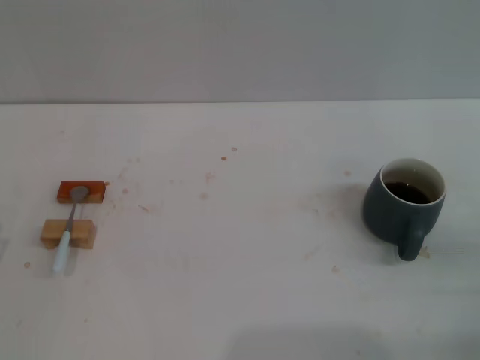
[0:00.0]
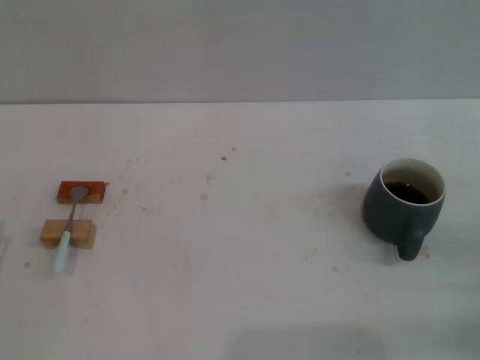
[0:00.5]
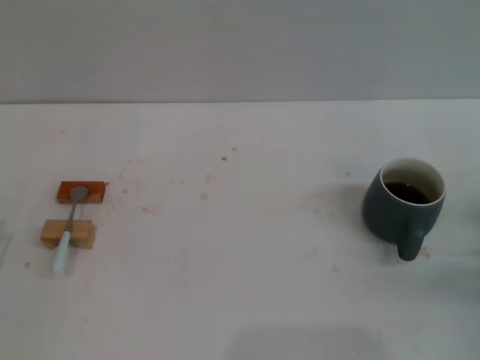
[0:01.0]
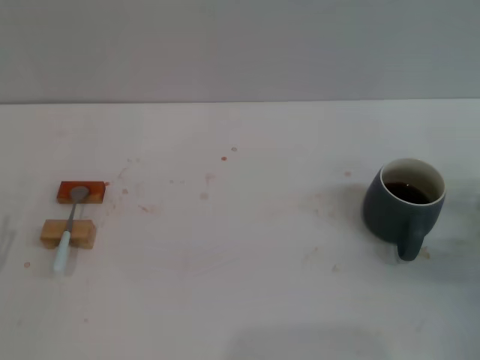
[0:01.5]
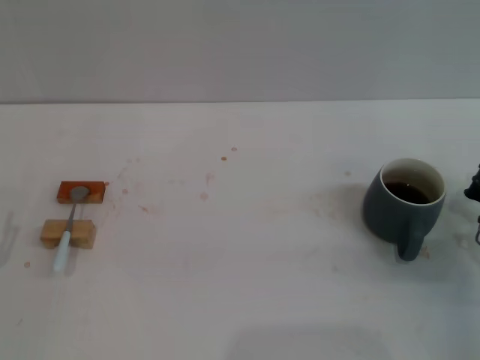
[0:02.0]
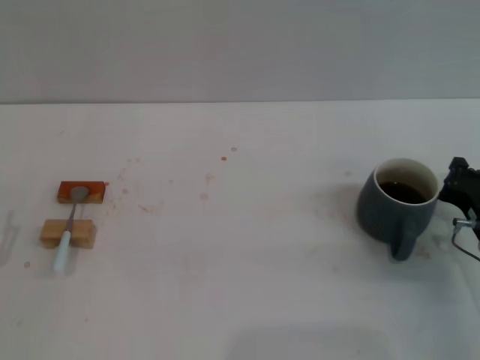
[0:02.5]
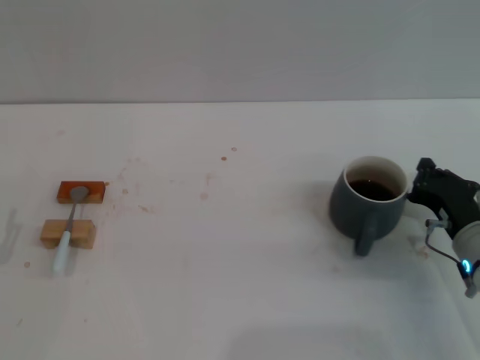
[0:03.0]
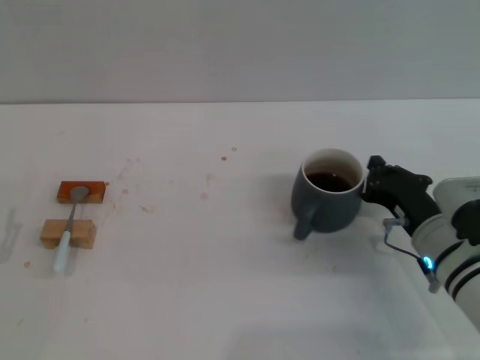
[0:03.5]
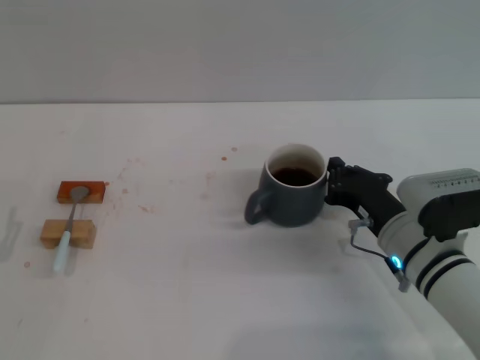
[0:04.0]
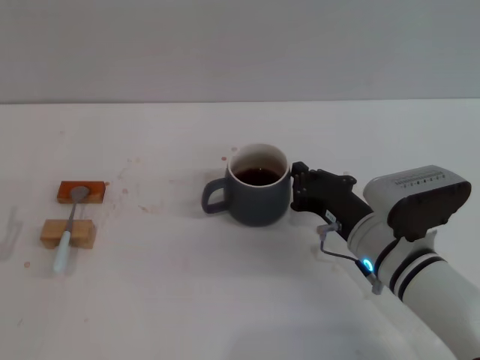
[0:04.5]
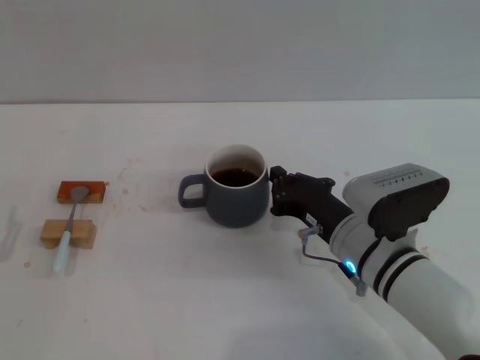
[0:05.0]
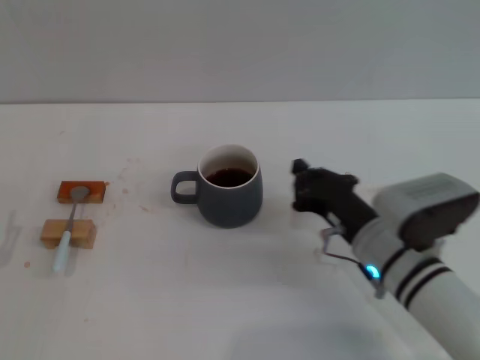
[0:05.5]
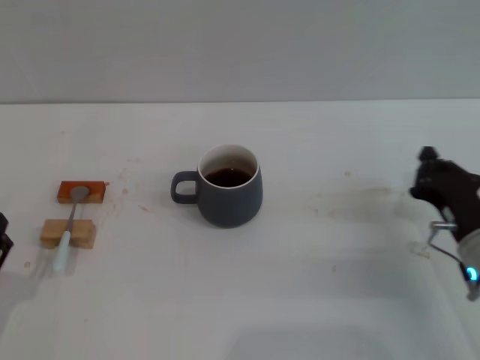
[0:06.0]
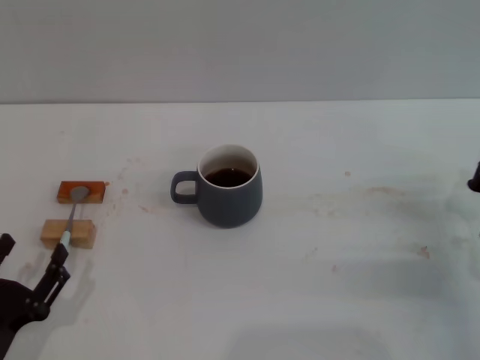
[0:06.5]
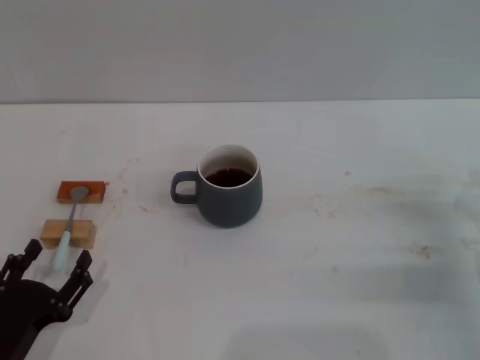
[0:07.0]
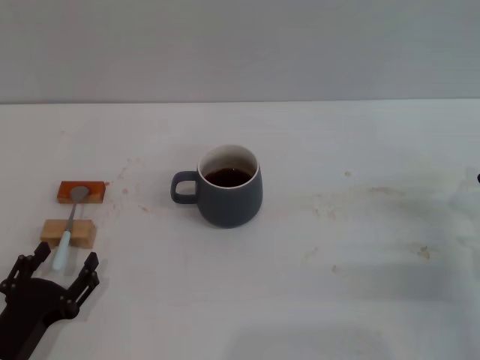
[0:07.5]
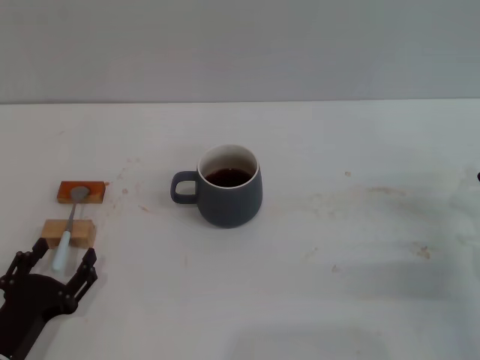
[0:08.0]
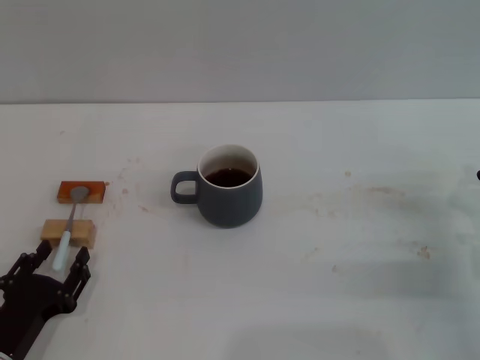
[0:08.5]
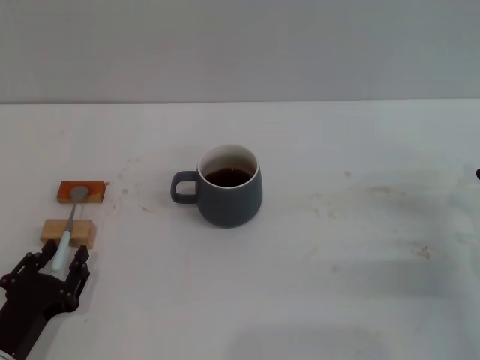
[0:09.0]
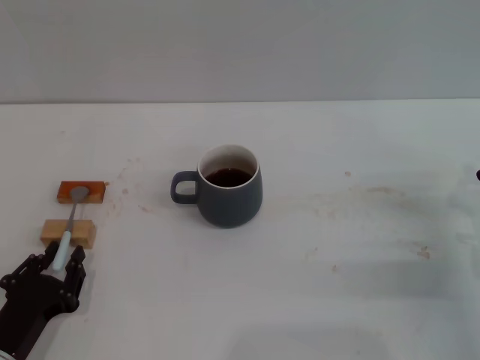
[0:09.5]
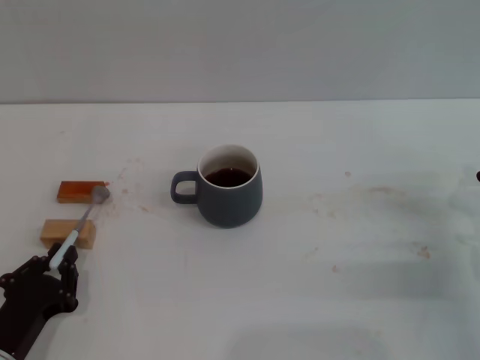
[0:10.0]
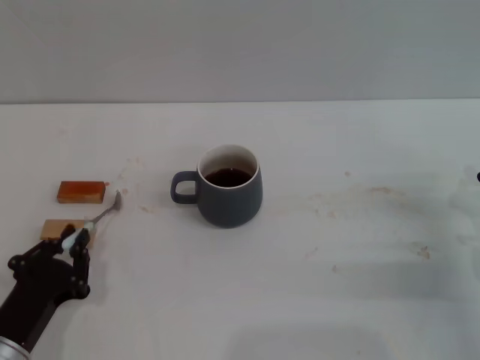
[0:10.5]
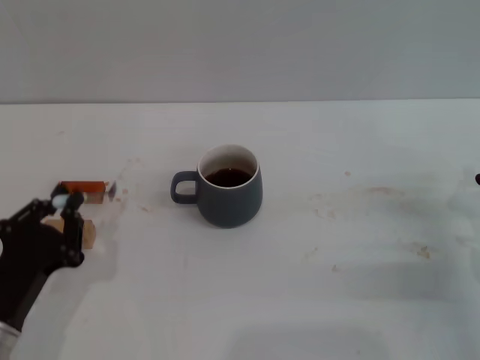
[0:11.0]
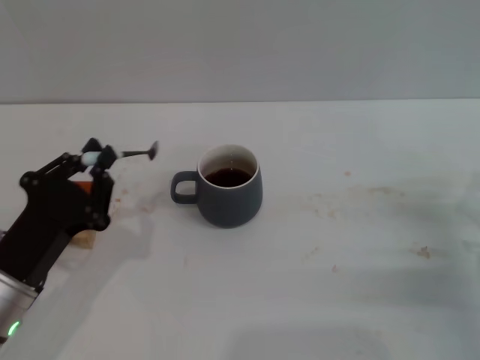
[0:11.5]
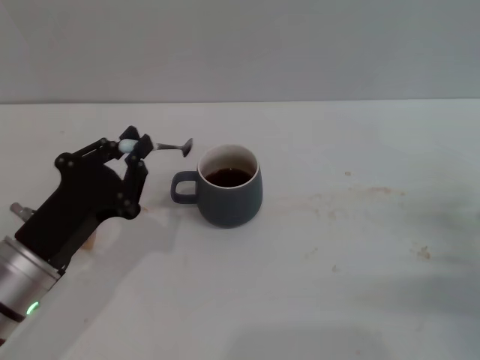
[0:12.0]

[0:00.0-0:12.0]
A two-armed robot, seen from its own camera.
Task of the whole recording: Move the grey cup to the center, lift the blue spoon, stir it three times in the cup, and put the spoon into the cup.
Step, 0:00.0 to 0:05.0: Move the cup with coffee to the center of view with the right gripper.
Step, 0:06.0 to 0:11.0: Pick up the spoon with the left gripper.
0:00.0 to 0:02.0: The right gripper travels forward by roughly 10 cm.
0:02.0 to 0:04.0: The right gripper goes approximately 10 cm to the left.
0:04.0 to 0:06.0: The left gripper moves some 5 cm. Meanwhile the right gripper is displaced to the right by some 5 cm.
0:06.0 to 0:08.0: The grippers move only a little.
0:08.0 to 0:10.0: The left gripper closes up.
0:10.0 to 0:12.0: The left gripper heads upward and forward, covering approximately 10 cm.

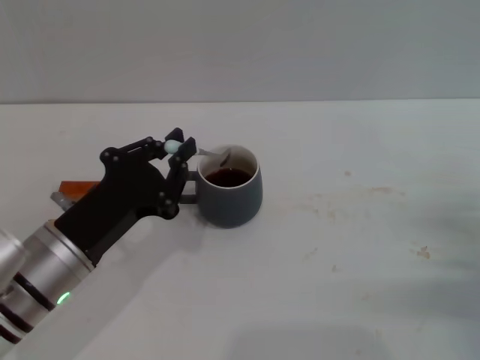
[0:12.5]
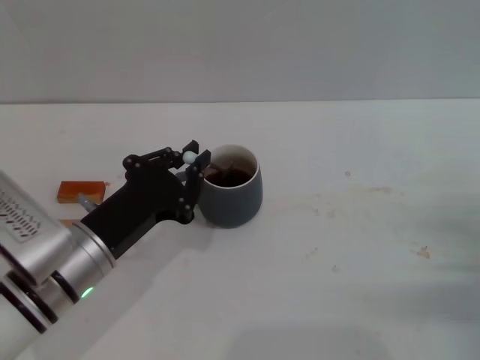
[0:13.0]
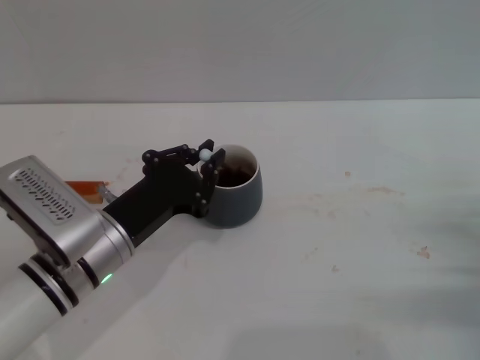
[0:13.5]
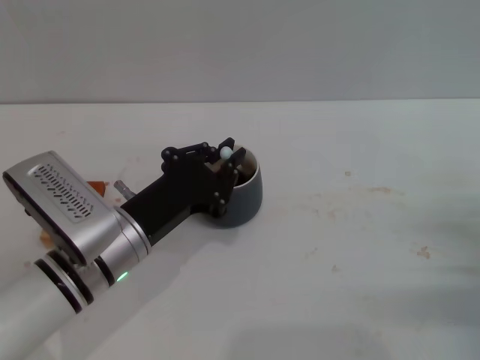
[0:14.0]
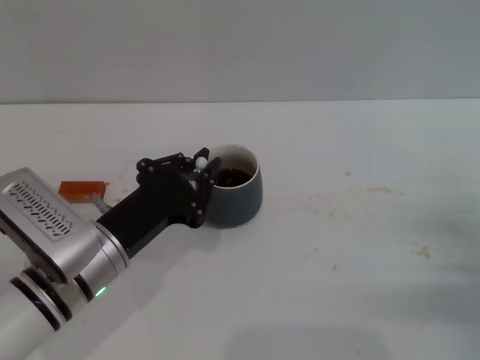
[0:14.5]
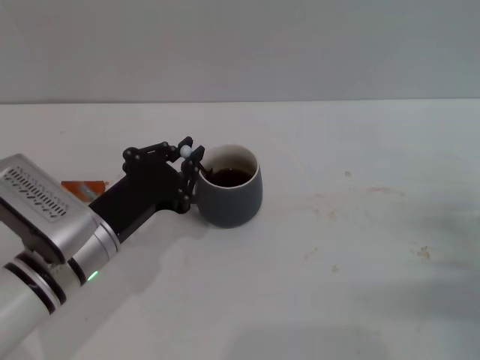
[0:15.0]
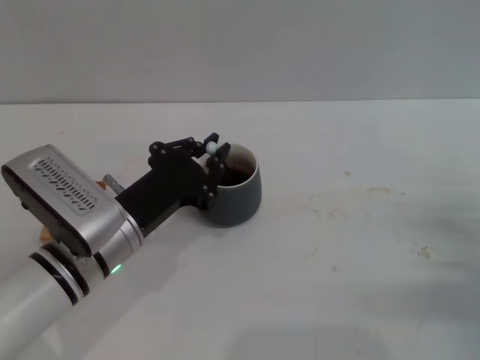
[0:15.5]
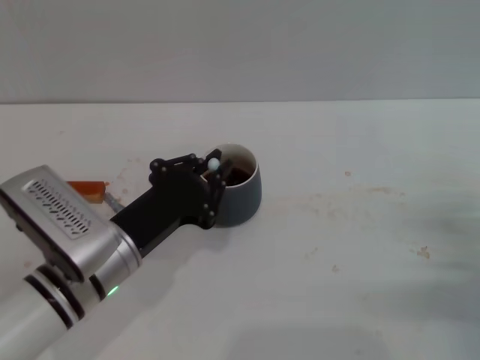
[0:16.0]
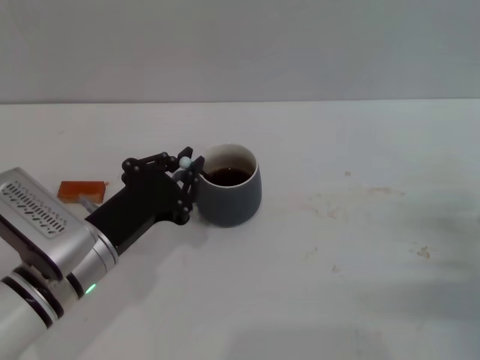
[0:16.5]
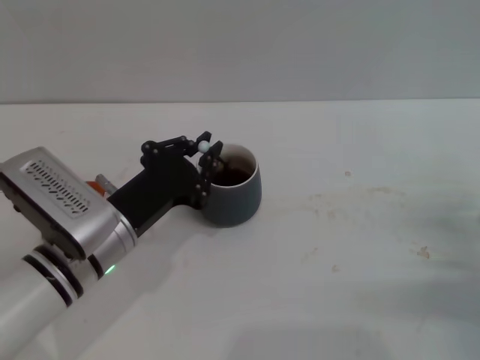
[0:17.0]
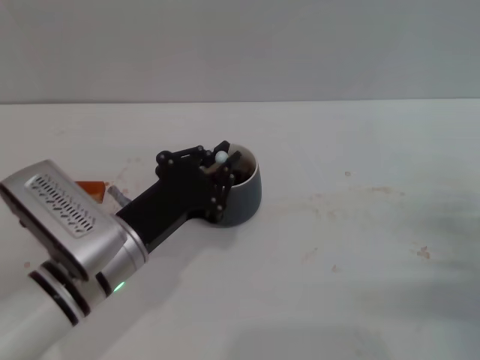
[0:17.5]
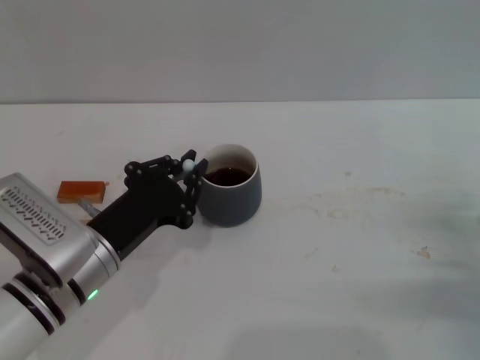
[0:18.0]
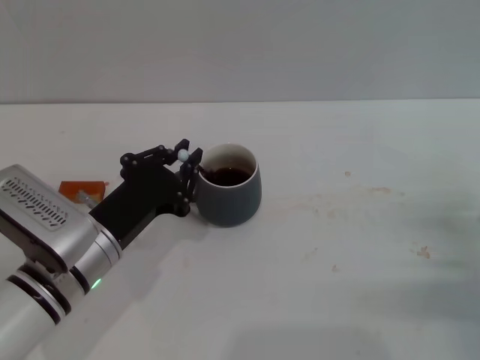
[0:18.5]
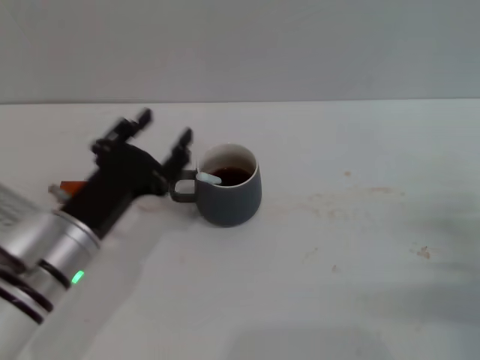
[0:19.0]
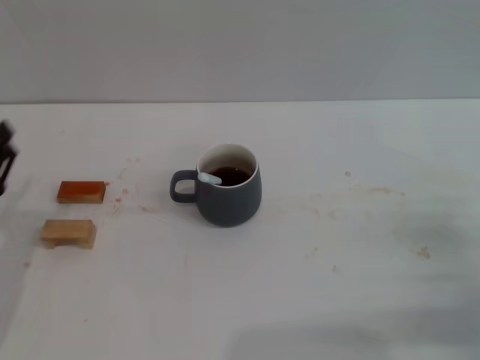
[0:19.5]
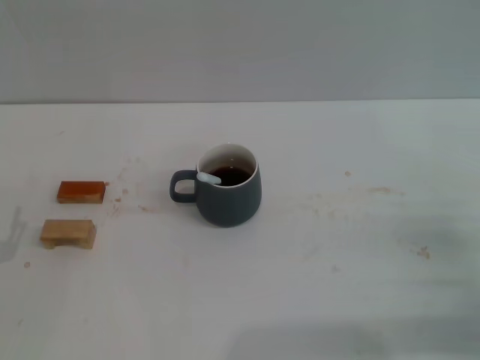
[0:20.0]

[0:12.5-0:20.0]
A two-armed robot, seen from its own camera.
Task of the whole recording: Move the grey cup to the center, lift the blue spoon, stir it three times in the cup, and put the spoon into the cup.
Step, 0:12.5 to 0:18.5: Stir the coffee in the cup with the left gripper.
0:12.5 to 0:18.0: There are only small adjustments of the grippers.
0:18.0 to 0:20.0: The left gripper moves to the left, approximately 15 cm, and opens.

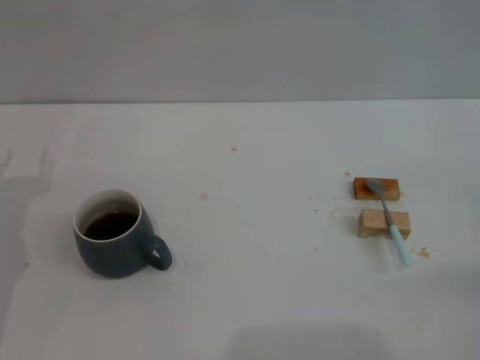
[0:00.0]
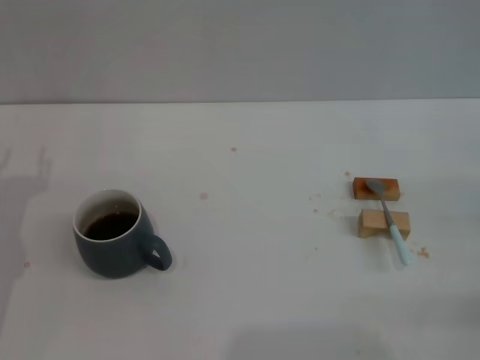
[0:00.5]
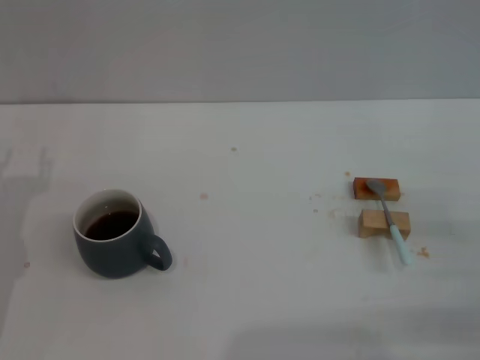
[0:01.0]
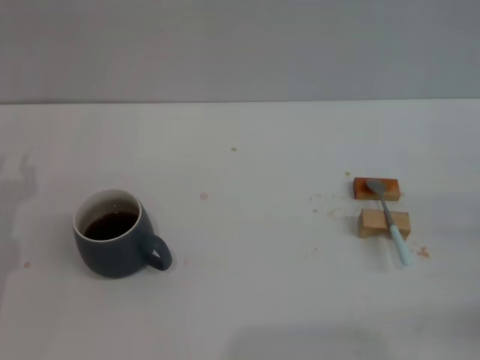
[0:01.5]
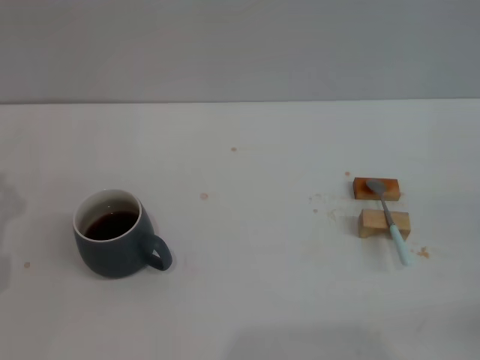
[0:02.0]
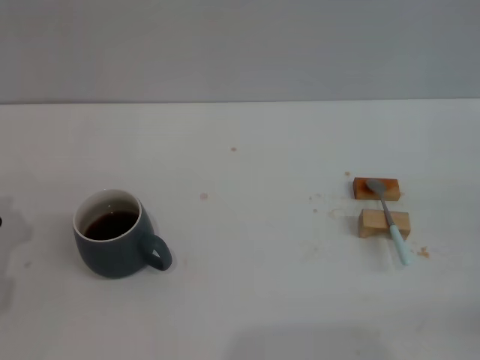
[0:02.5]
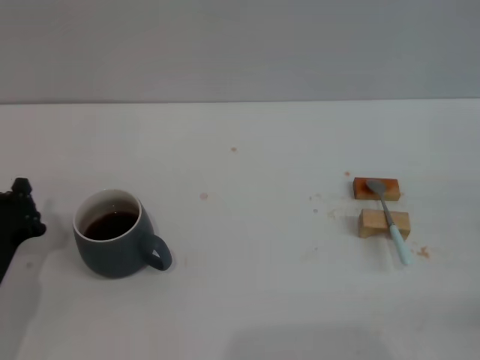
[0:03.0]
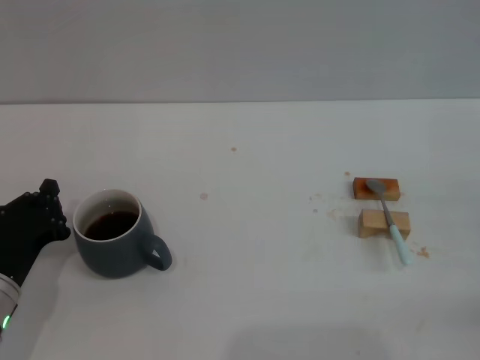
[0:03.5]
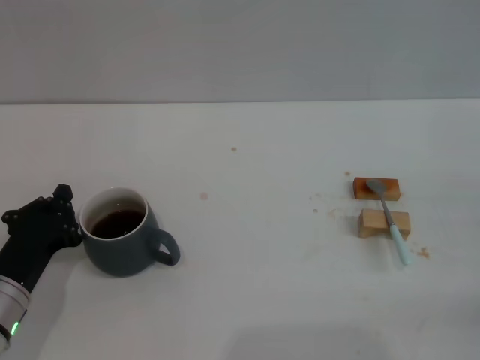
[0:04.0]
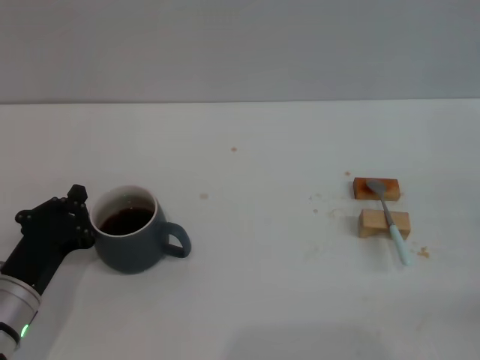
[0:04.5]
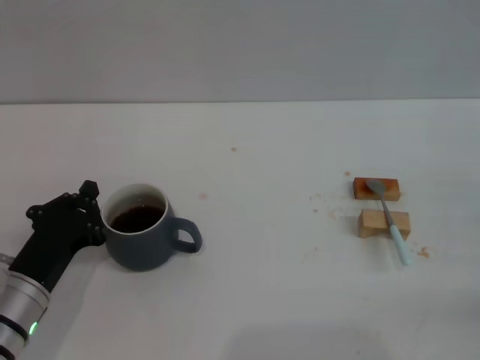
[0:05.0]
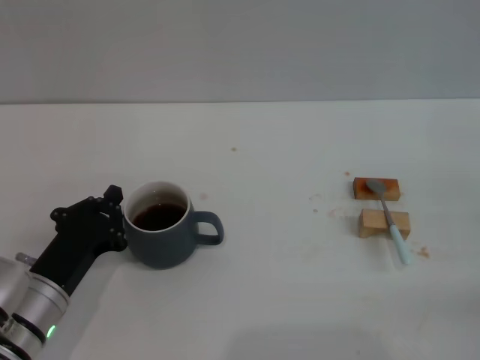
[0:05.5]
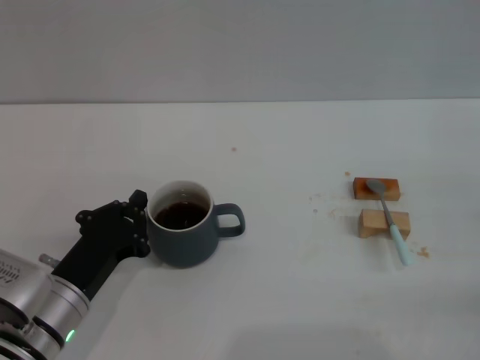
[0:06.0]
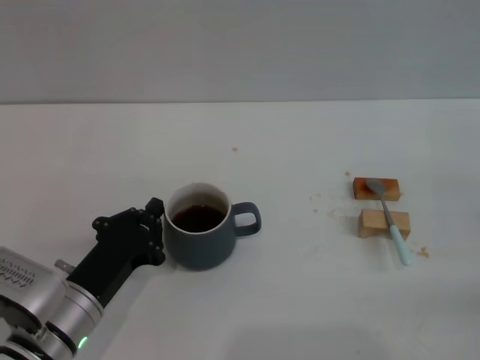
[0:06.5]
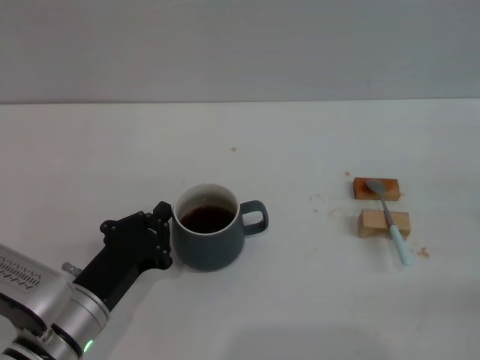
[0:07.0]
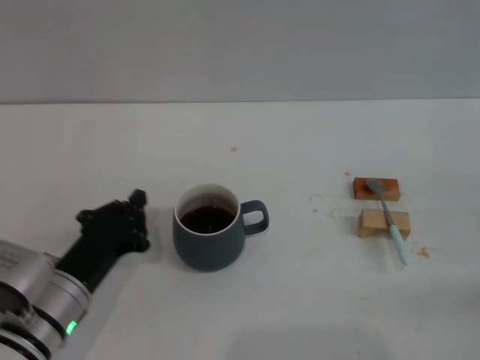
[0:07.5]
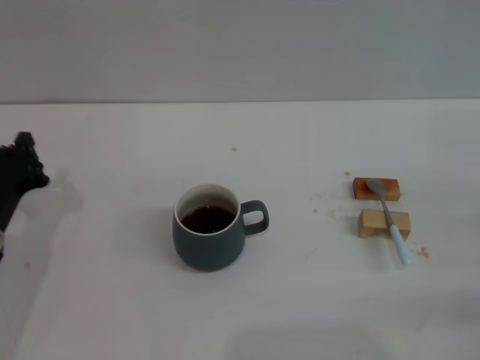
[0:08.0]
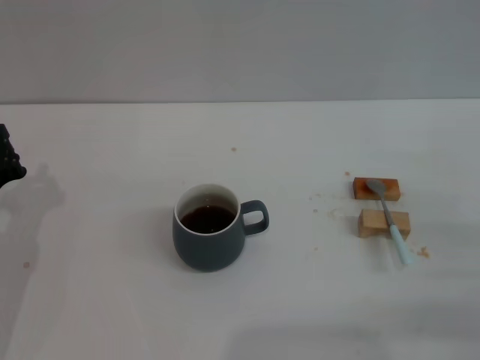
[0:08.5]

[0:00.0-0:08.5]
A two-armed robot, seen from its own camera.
Task of the whole recording: Move the grey cup to the center, lift the blue spoon, stir it three times in the cup, and put the spoon into the cup.
Step, 0:00.0 to 0:07.5: Move the cup with coffee to the center of view with the left gripper.
0:02.0 to 0:04.0: The left gripper goes some 5 cm to the right.
0:04.0 to 0:06.5: The left gripper goes about 5 cm to the right.
0:06.5 to 0:08.5: The right gripper heads to the left, covering about 5 cm. Meanwhile the left gripper moves to the left and forward, about 10 cm.
